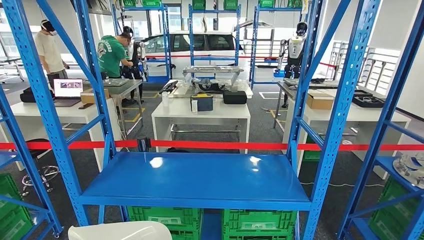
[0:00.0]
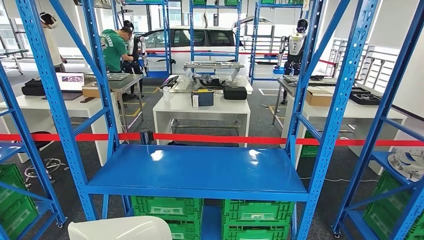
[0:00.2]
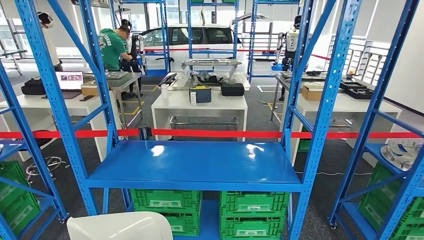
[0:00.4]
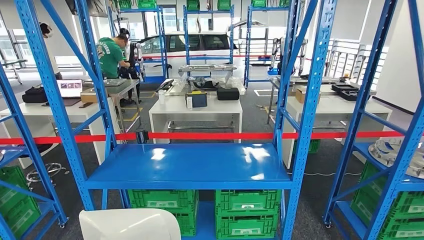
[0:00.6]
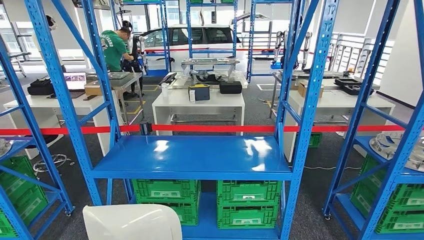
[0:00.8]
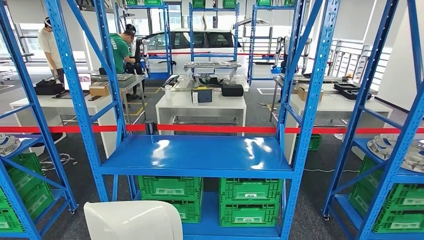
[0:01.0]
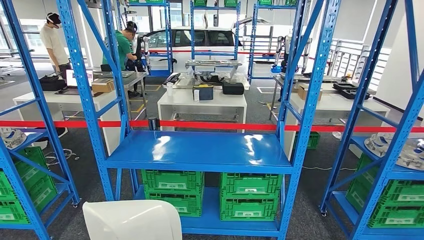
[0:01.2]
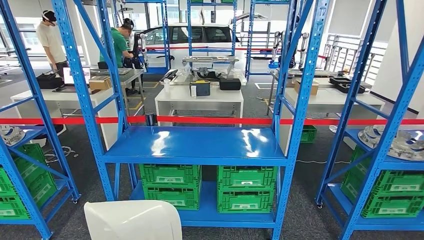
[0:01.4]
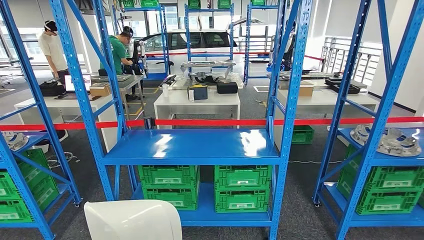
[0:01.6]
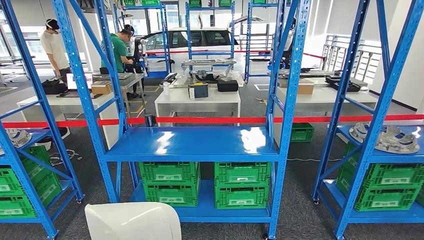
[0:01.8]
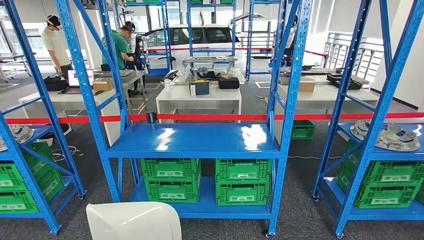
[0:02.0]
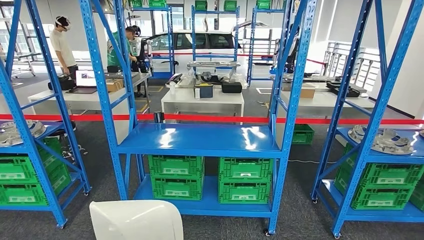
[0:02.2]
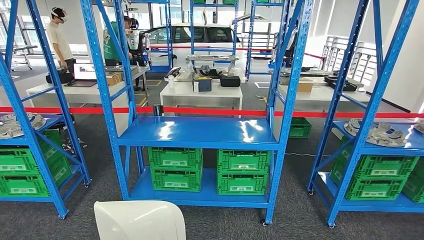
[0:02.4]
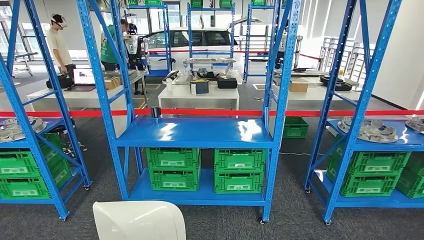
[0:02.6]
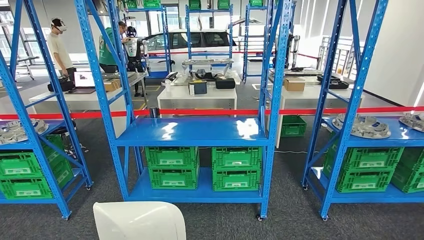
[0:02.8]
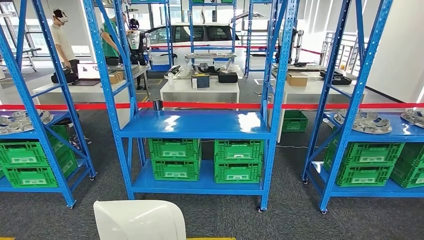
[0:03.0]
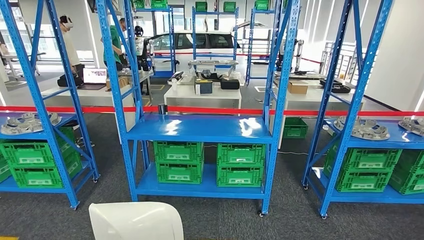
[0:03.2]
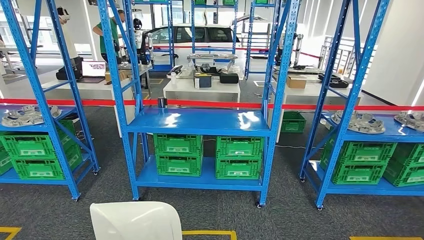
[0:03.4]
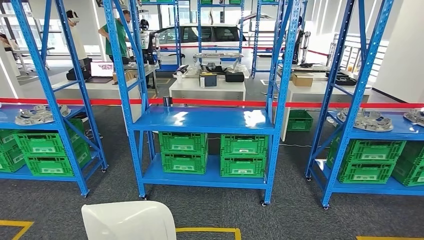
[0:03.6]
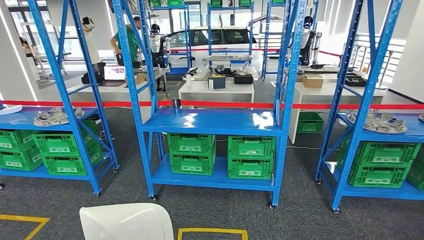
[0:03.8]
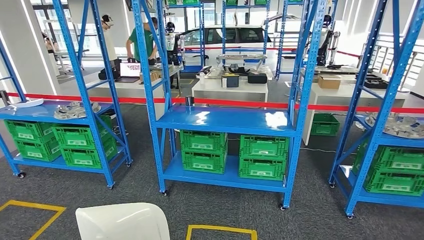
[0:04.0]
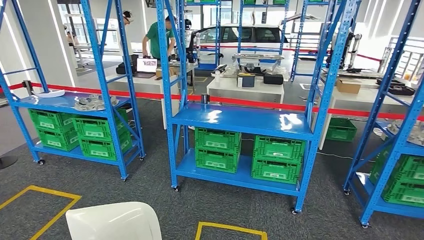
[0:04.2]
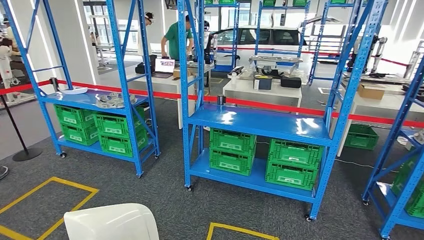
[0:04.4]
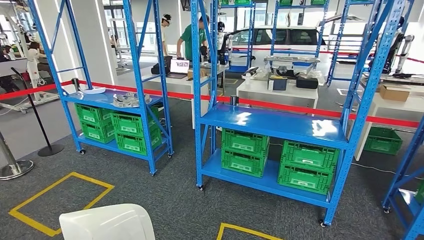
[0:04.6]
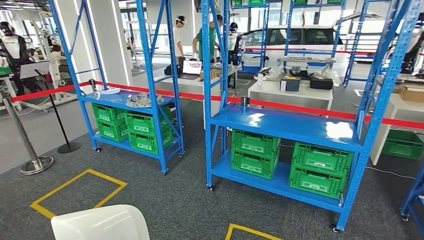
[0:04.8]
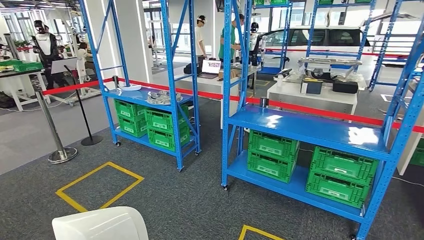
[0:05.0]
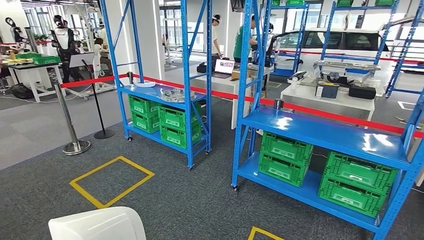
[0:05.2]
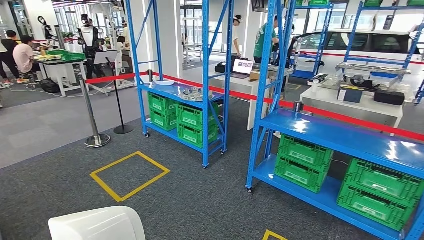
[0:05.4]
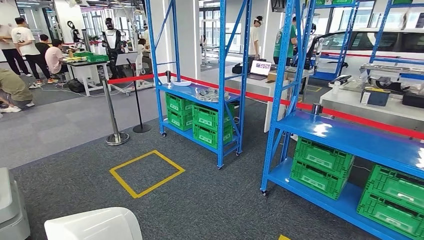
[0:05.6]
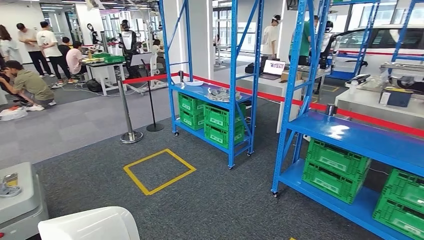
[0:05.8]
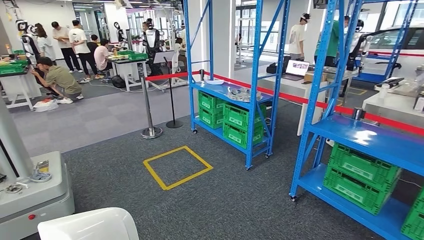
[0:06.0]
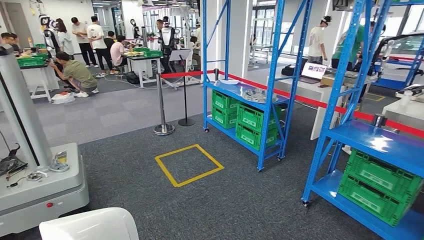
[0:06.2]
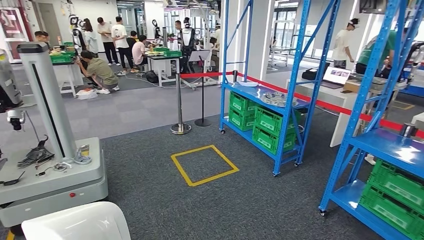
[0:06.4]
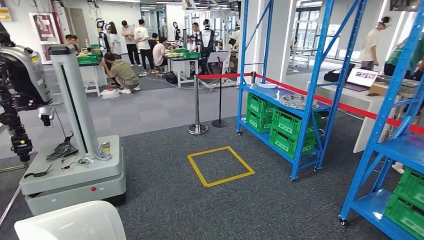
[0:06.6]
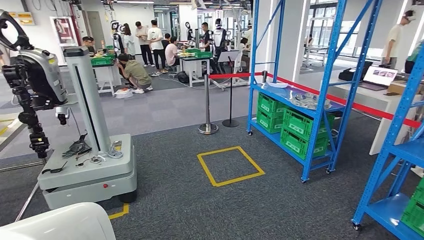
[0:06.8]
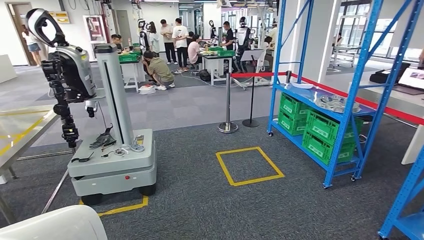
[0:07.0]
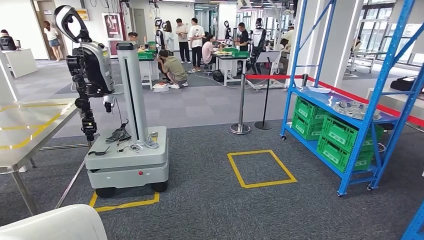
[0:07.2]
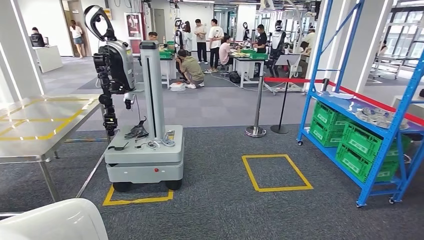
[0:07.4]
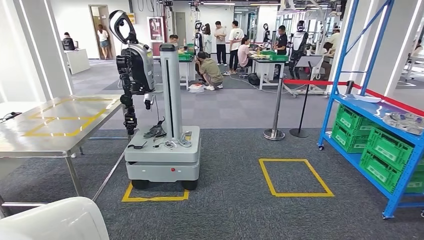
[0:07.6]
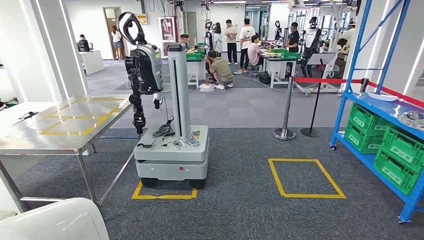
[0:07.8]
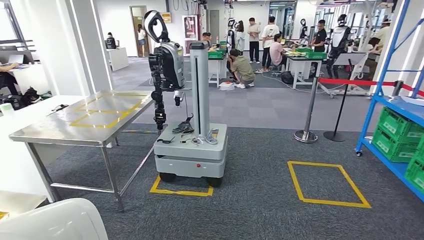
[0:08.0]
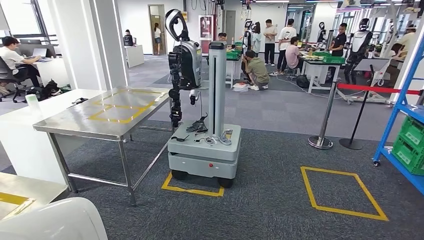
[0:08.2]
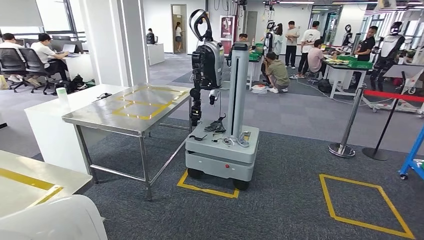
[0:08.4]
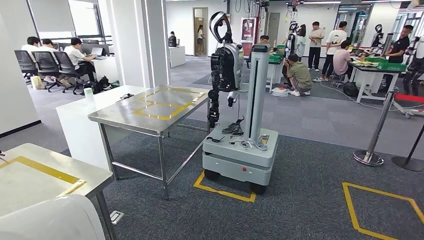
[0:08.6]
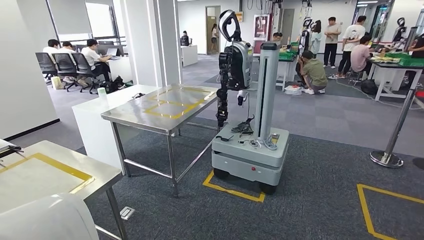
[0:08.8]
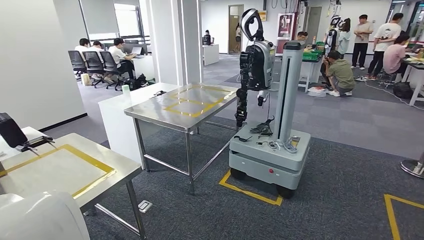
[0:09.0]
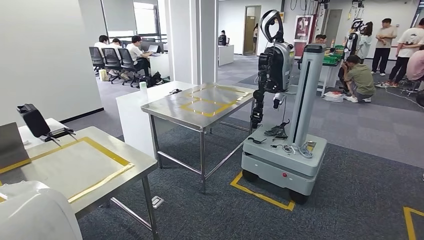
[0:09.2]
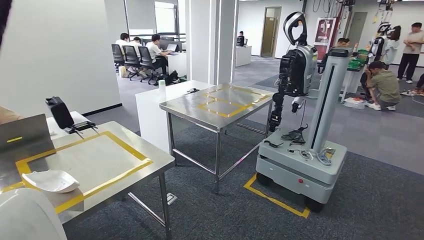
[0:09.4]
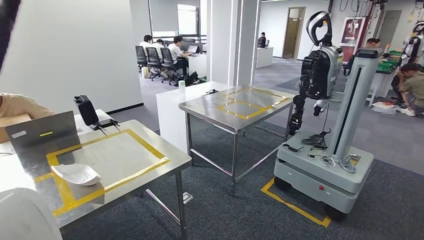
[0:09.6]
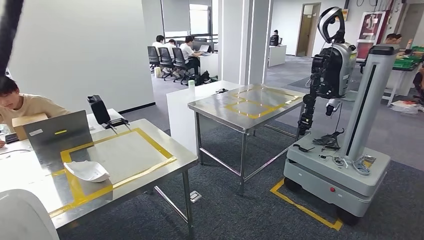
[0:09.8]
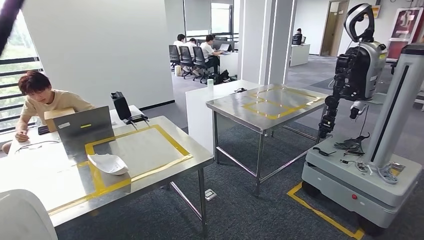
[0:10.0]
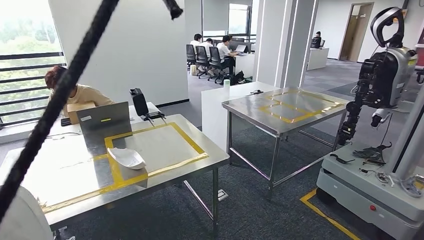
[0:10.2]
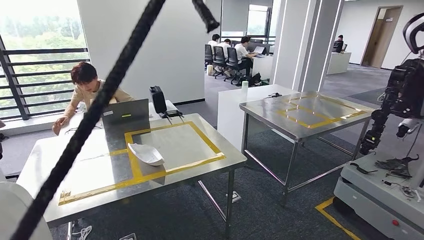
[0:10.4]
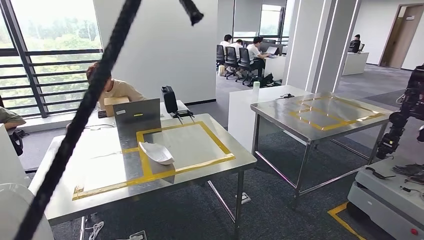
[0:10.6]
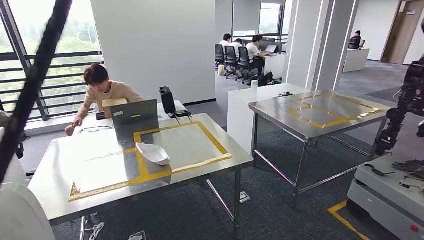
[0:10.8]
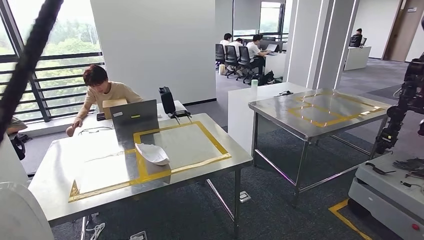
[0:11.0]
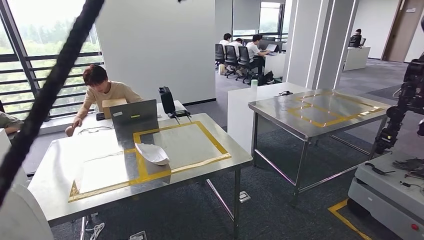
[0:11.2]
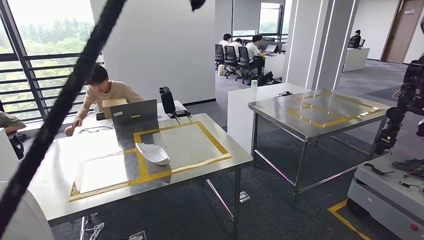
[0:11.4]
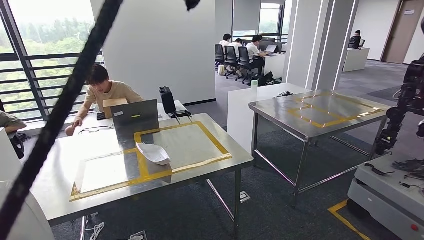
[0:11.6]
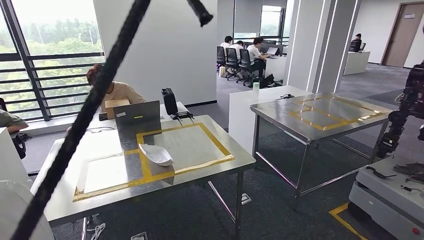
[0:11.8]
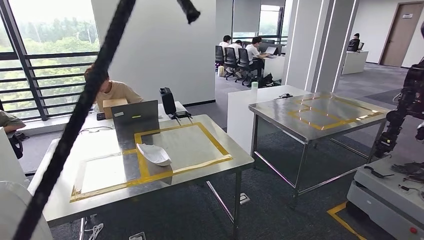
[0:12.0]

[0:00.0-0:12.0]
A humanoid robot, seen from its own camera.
Step, 0:00.0 to 0:10.0: Move the small component to the workbench.

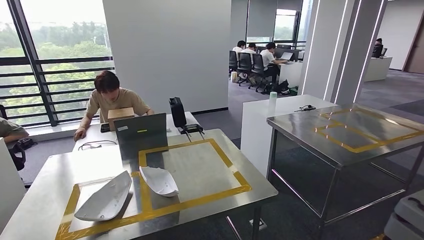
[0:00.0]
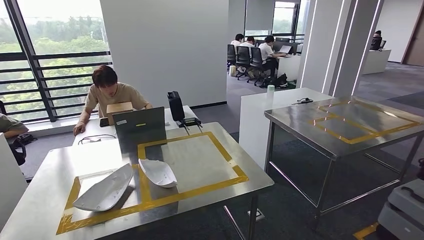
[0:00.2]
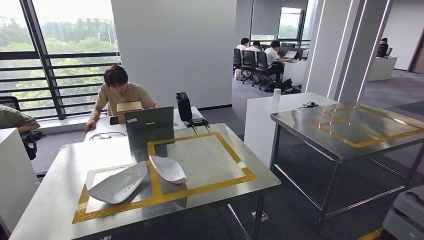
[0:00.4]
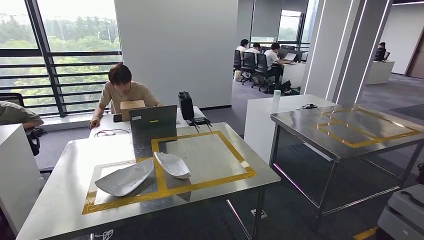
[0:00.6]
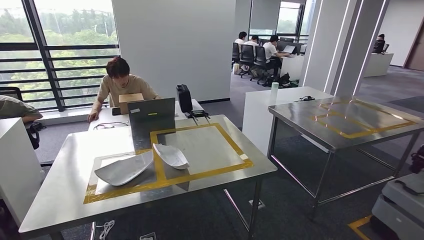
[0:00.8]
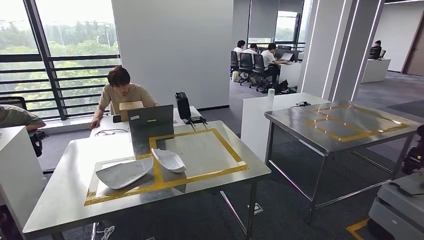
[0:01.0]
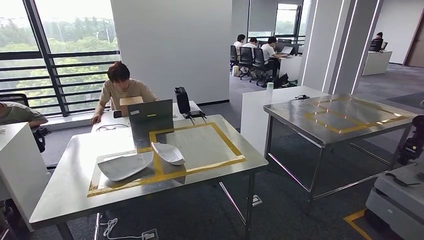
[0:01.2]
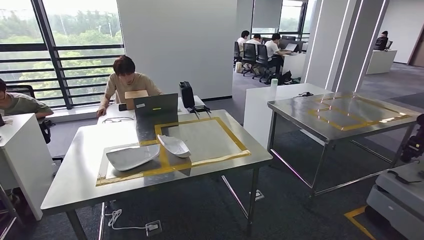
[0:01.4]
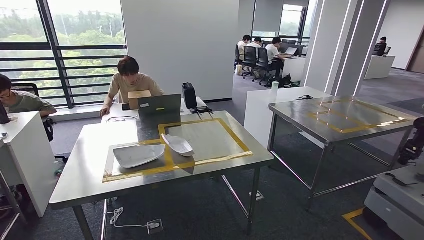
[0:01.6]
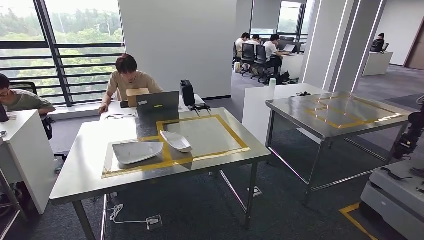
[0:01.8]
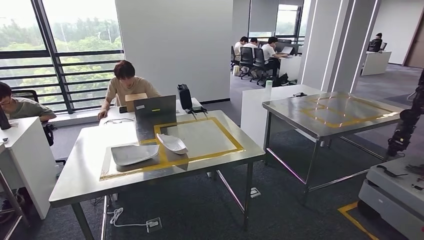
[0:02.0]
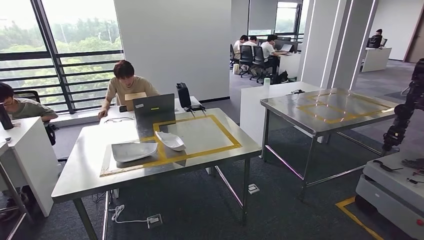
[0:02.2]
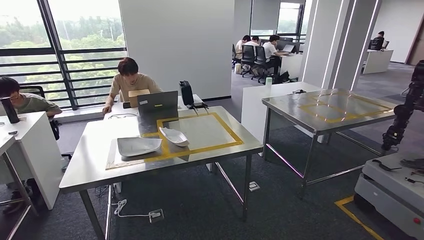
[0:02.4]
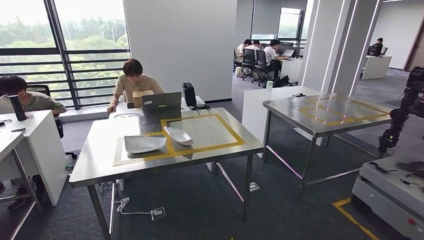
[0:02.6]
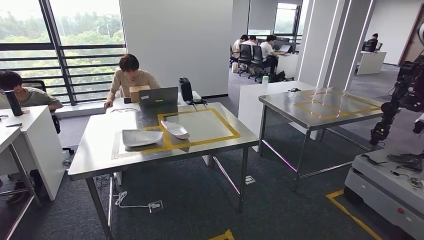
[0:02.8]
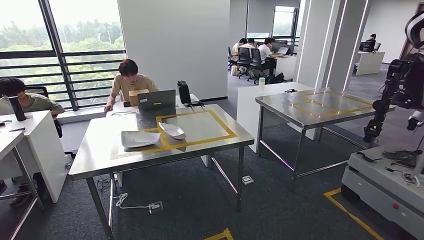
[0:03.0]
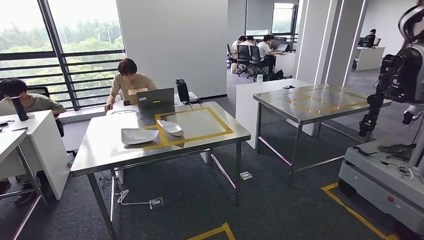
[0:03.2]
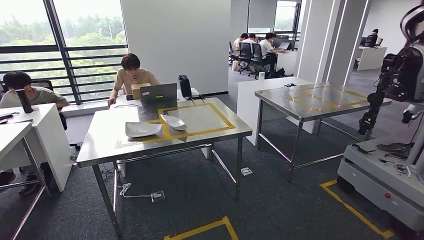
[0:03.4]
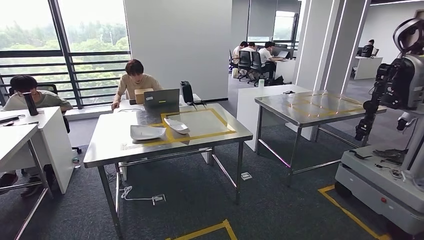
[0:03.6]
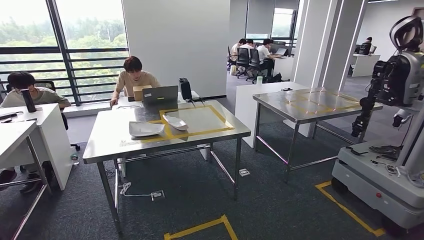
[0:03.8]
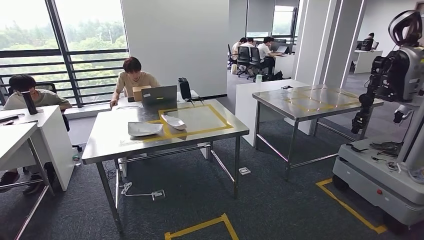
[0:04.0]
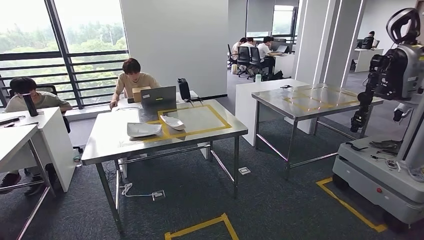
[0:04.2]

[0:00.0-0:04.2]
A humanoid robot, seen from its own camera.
Step, 0:00.4 to 0:04.2: Return to the initial position at the workbench.
